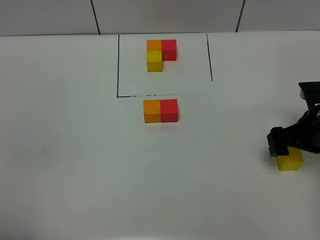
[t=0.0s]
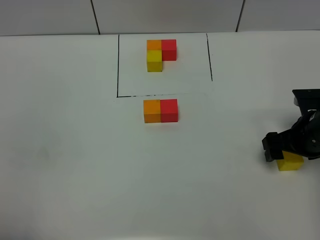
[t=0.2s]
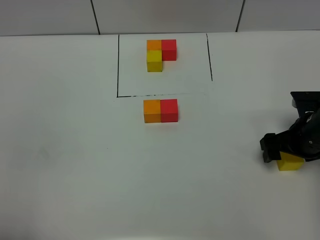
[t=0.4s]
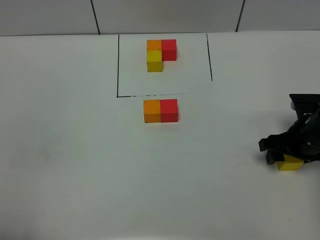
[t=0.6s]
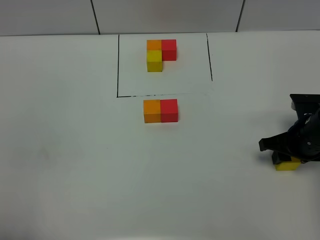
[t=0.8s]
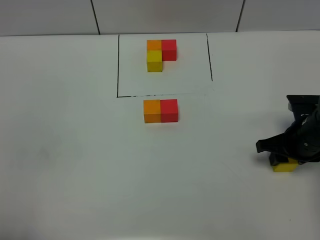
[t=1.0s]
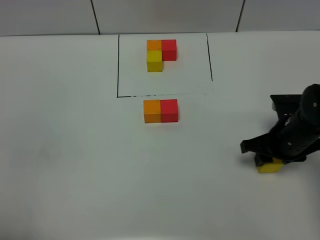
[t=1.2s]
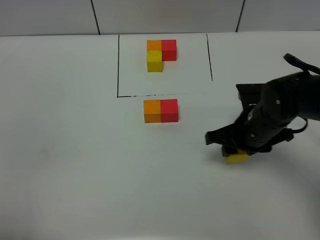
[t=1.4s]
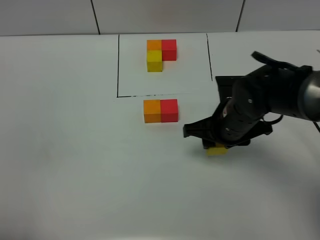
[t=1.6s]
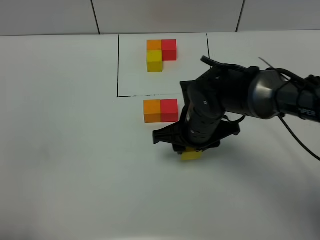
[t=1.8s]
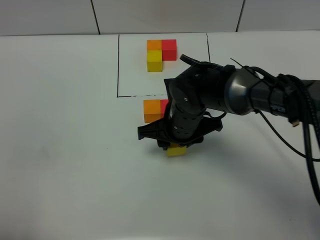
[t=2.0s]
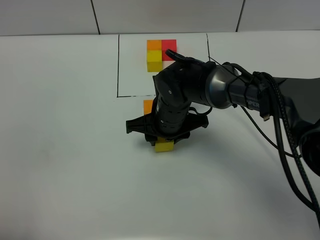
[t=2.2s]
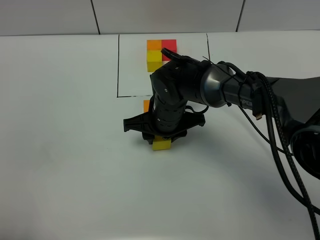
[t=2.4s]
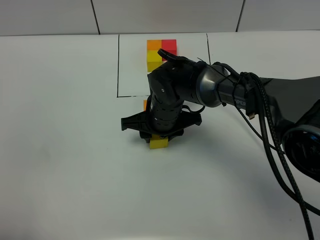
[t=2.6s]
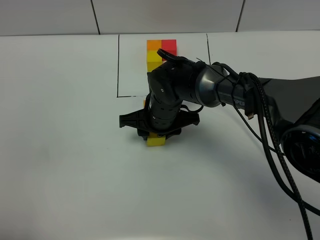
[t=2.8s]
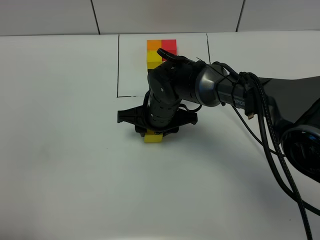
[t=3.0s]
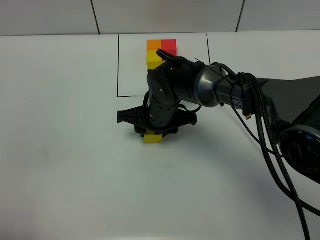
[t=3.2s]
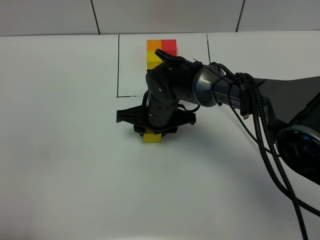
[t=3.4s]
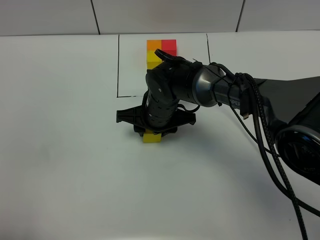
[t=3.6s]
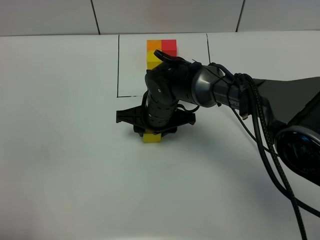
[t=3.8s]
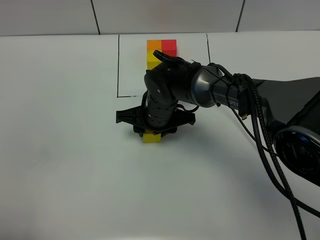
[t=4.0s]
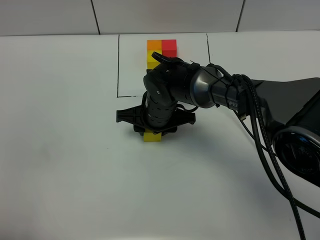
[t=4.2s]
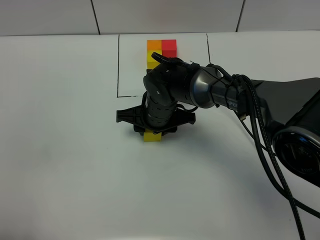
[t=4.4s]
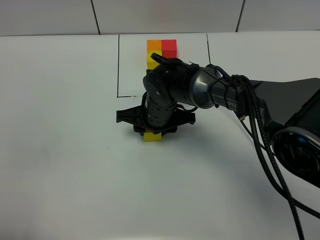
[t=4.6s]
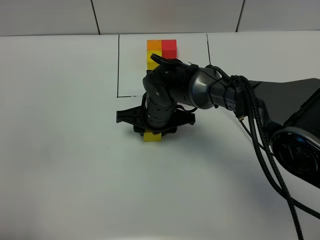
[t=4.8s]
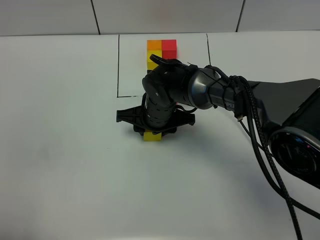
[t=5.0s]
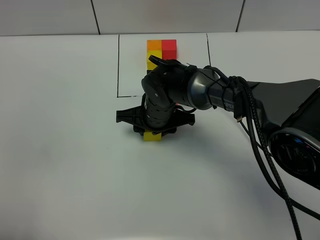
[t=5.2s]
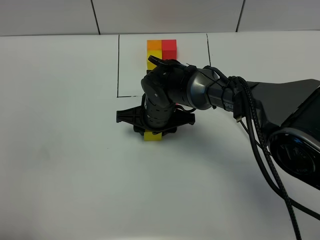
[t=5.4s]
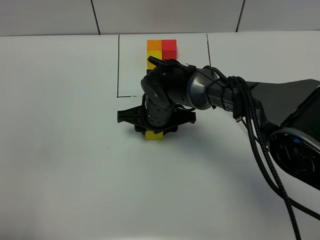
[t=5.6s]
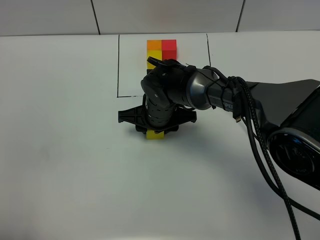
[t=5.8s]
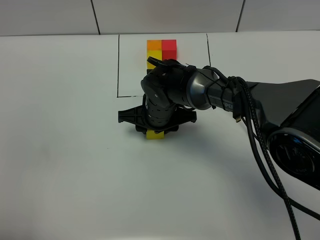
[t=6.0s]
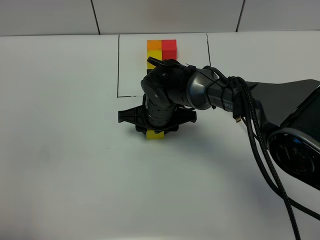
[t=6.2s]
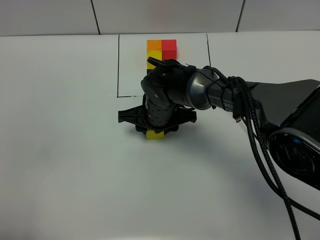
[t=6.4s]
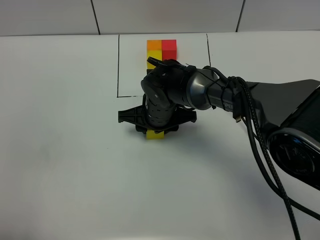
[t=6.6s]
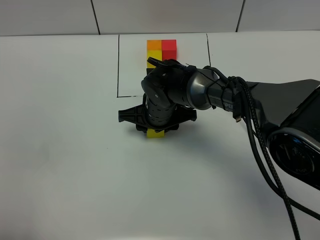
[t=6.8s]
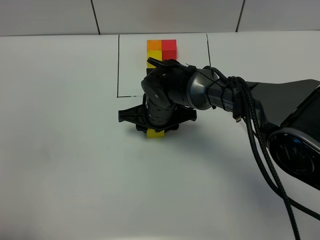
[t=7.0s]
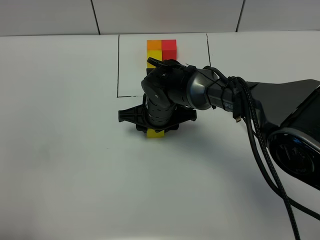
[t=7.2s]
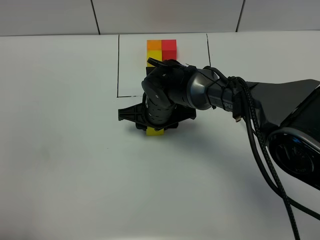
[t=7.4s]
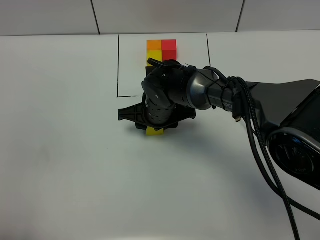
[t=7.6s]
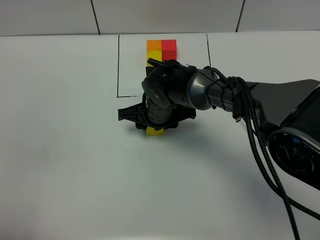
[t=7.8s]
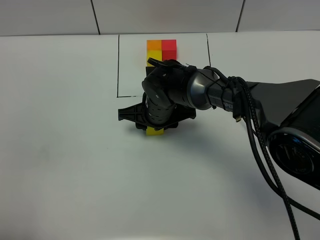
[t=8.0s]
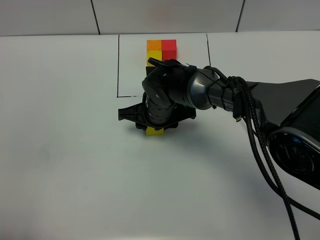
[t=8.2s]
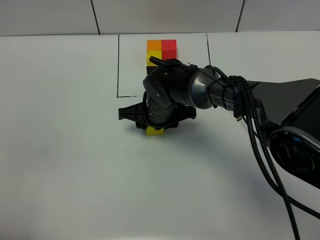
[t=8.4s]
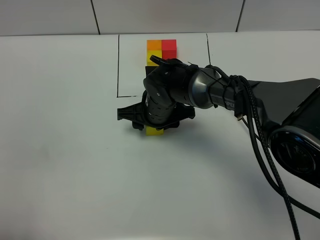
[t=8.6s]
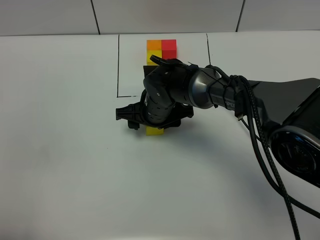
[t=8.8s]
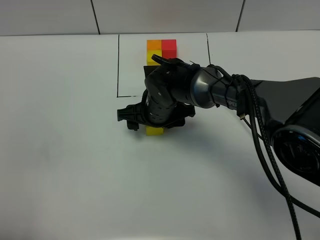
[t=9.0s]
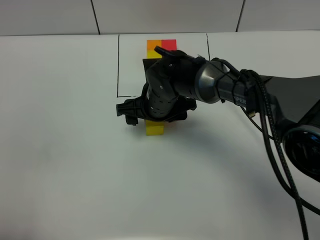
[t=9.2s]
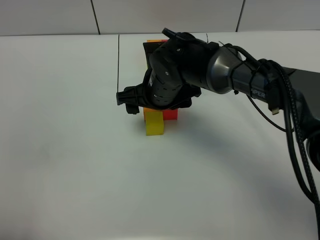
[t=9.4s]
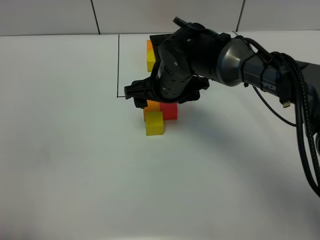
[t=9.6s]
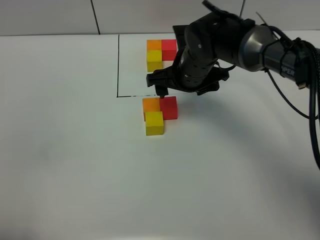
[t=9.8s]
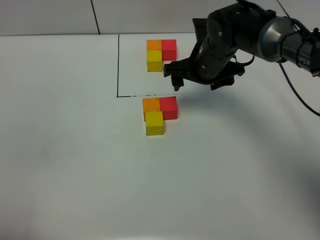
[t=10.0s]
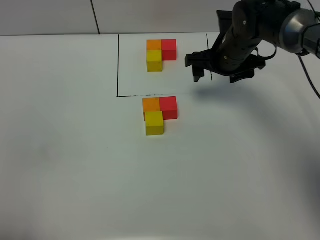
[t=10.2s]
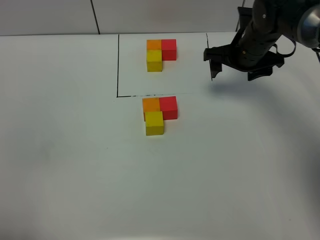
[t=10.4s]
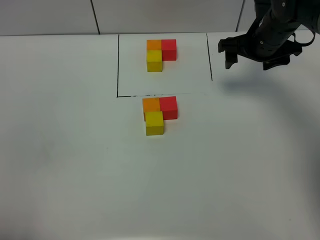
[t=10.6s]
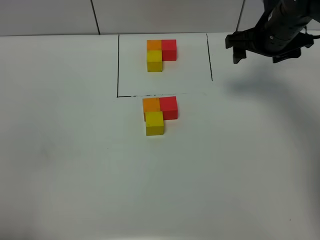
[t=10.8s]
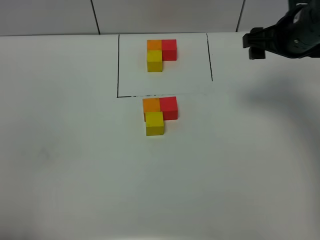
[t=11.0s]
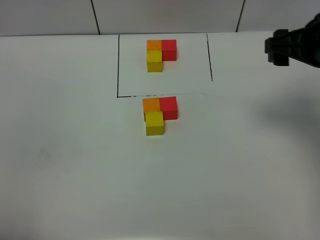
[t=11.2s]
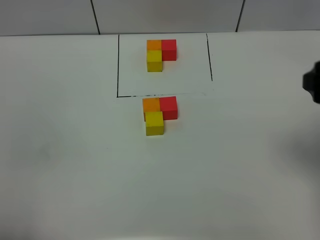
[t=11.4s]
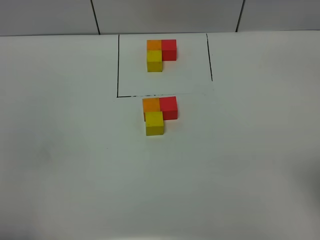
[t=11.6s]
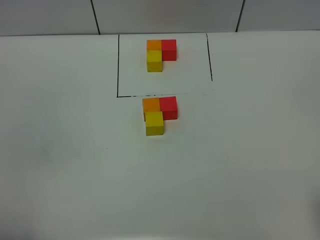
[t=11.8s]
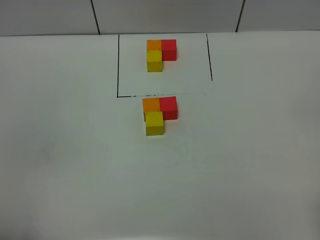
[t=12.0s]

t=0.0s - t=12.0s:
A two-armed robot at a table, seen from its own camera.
Task of the whole recording: According to the building block template in front, assemble the scattered blocks together.
Step, t=0.0s - t=9.0s: Put the yellow build block on the behind of the orange build block.
t=0.0s - t=1.6s: The right gripper is displaced to the left by about 15 cm, and closes up.
t=1.6s - t=3.0s: The right gripper heads to the left and forward, covering approximately 15 cm.
t=3.0s - t=4.4s: The two grippers keep their place.
t=4.4s - t=7.6s: Both grippers stay about where they are.
t=7.6s - t=9.0s: The right gripper opens.
t=9.0s - t=10.4s: The right gripper heads to the right and forward, covering approximately 20 cm.
t=10.4s - t=12.0s: The right gripper travels backward by approximately 40 cm.
